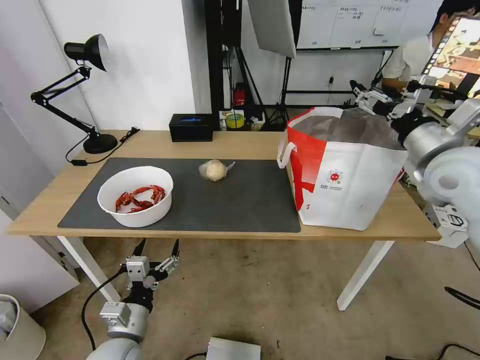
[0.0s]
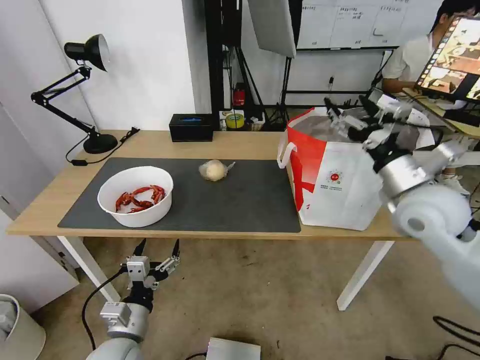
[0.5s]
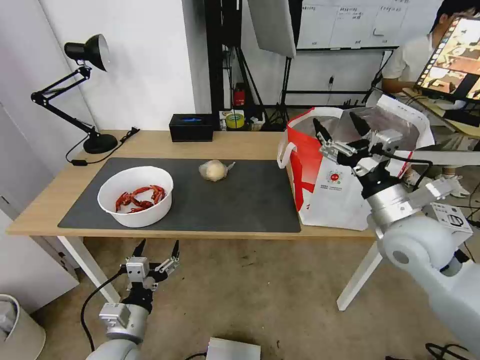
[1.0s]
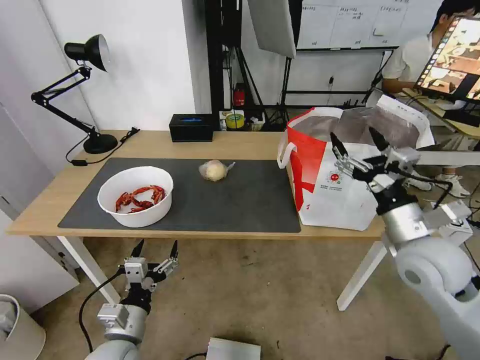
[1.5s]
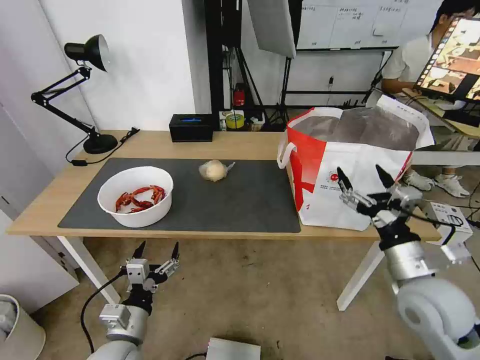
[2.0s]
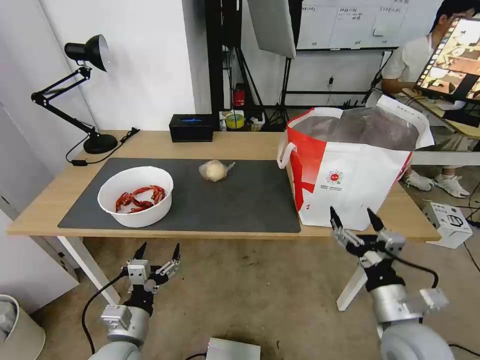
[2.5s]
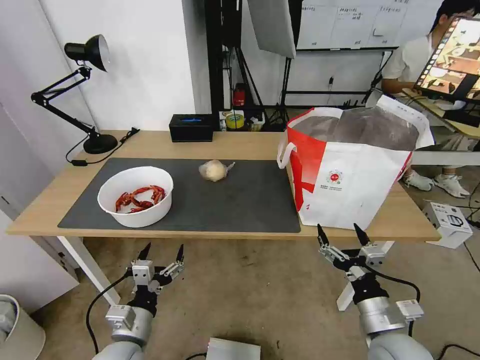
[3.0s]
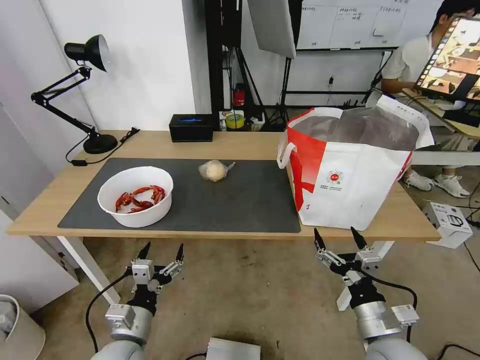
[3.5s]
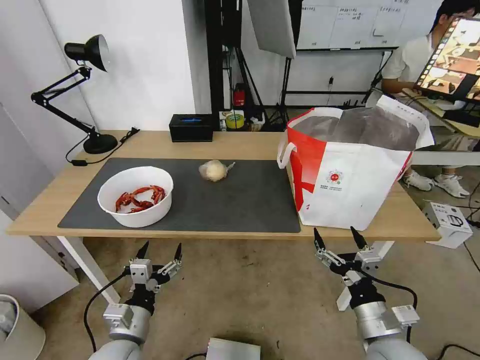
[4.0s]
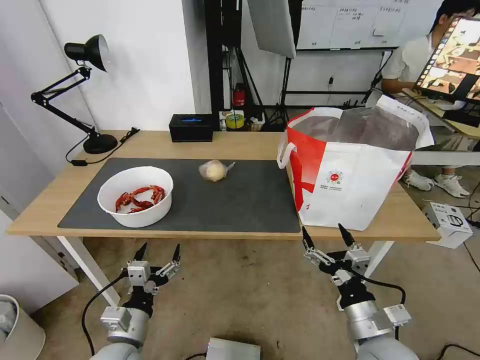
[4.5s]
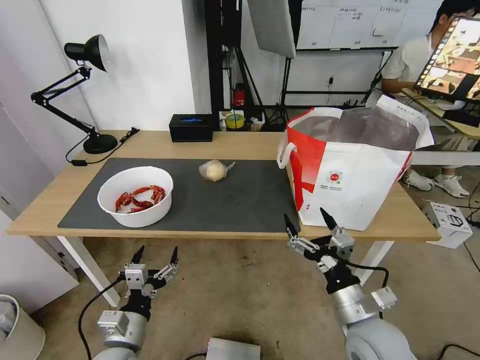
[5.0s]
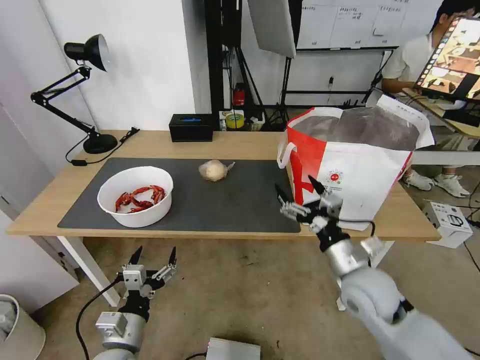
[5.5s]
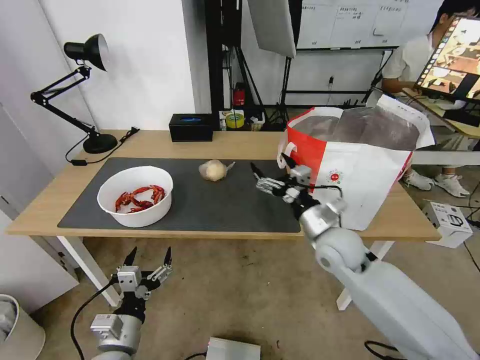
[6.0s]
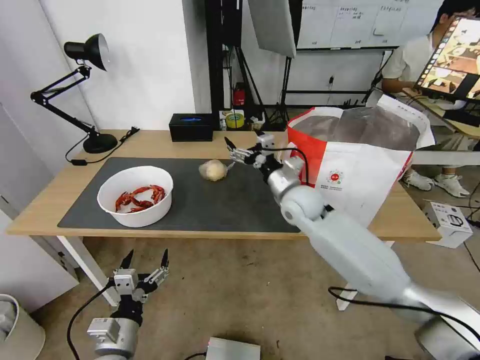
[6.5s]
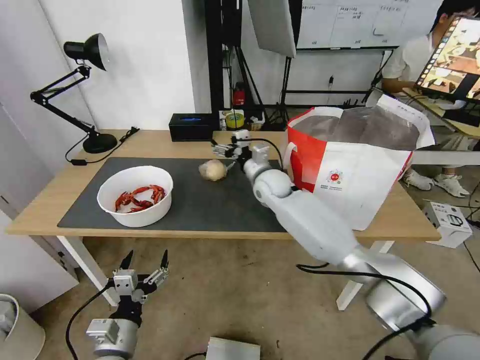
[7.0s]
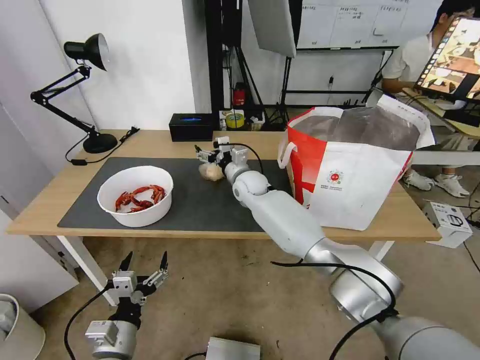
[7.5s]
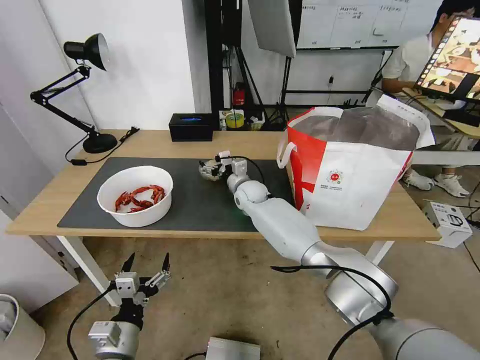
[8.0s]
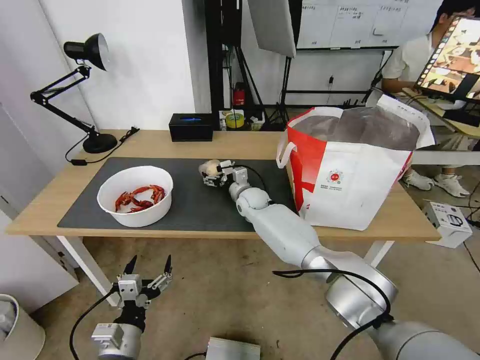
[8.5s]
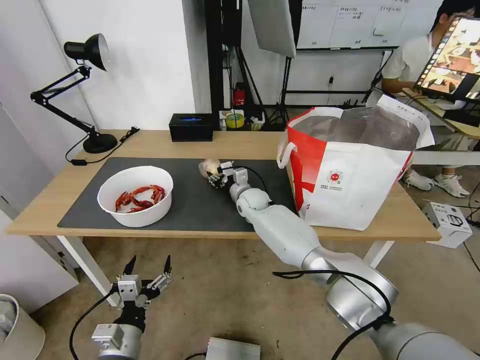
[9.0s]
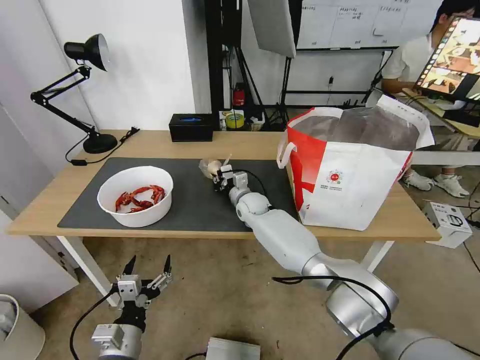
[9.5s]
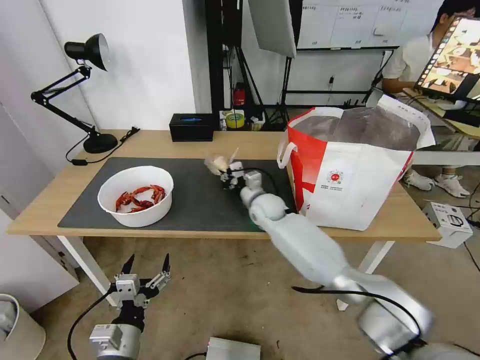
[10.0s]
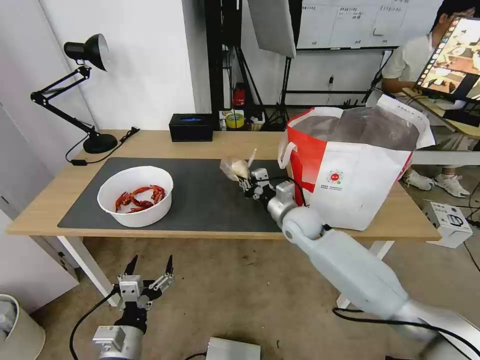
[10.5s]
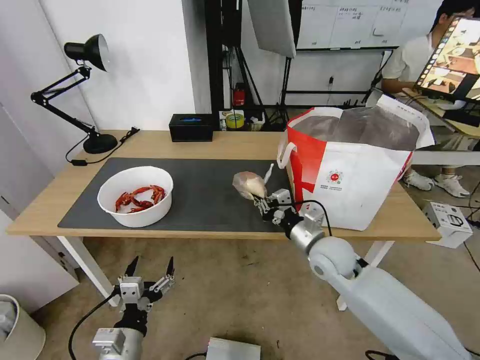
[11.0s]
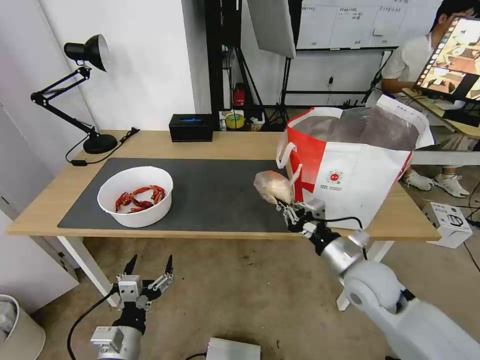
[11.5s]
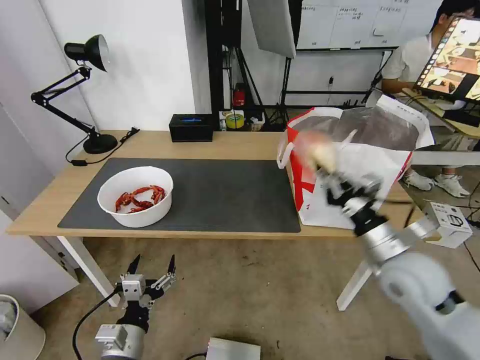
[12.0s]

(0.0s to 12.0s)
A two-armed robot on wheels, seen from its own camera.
Task of the whole recording: Pick up the trash from the table and place it into the takeout bag.
0.0s - 2.0s: The right gripper heads downward and backward, covering some 20 cm.
2.0s - 4.0s: The right gripper is displaced downward and backward by some 15 cm.
4.0s - 6.0s: The right gripper moves forward, roughly 20 cm.
6.0s - 8.0s: The right gripper heads forward and to the left, covering approximately 30 cm.
8.0s - 10.0s: The right gripper changes place by roughly 5 cm, and closes.
10.0s - 12.0s: The right gripper goes some 35 cm backward, to the right and upward.

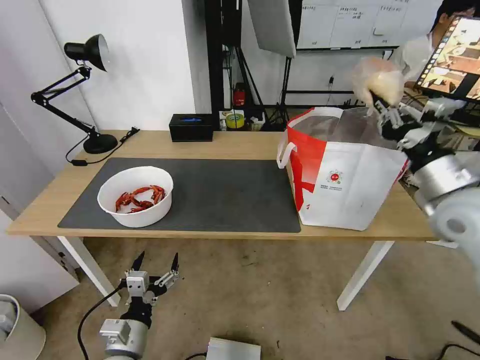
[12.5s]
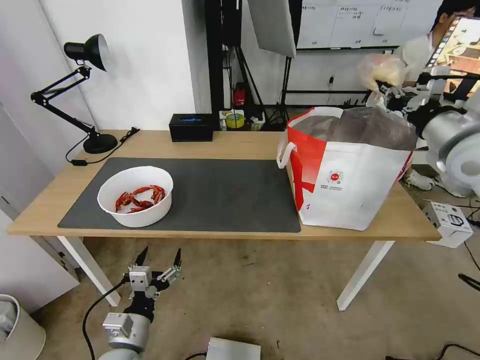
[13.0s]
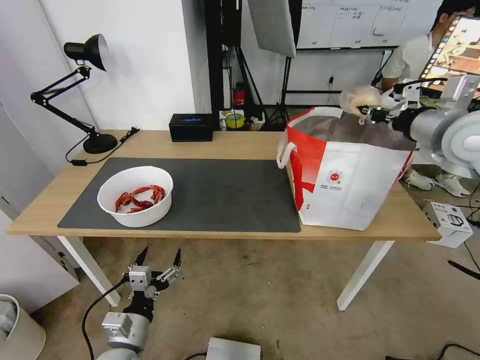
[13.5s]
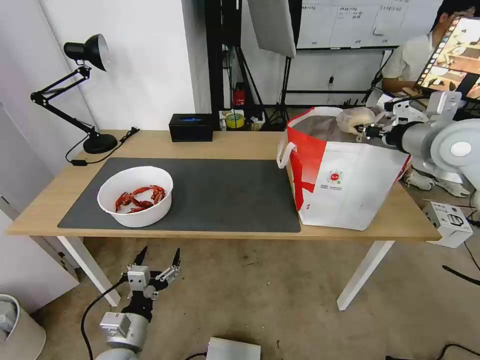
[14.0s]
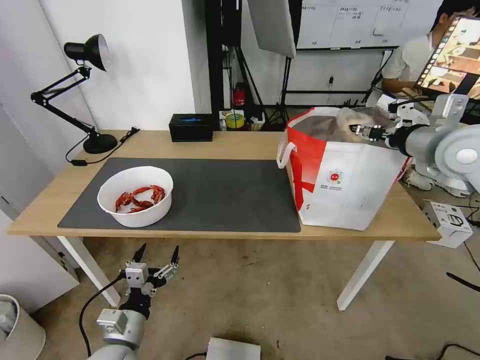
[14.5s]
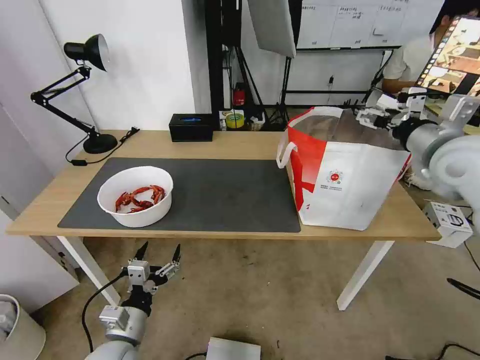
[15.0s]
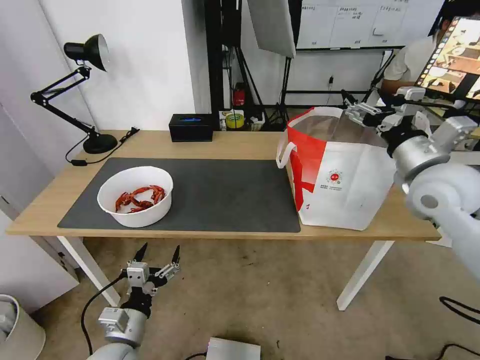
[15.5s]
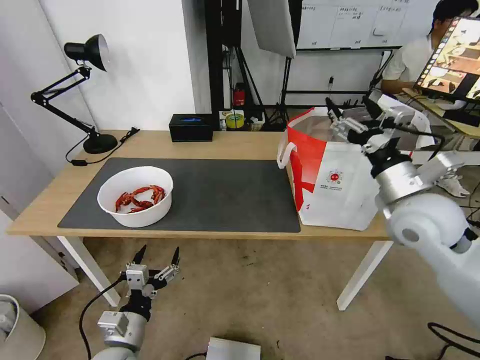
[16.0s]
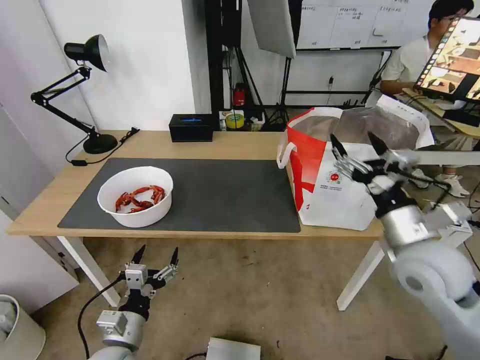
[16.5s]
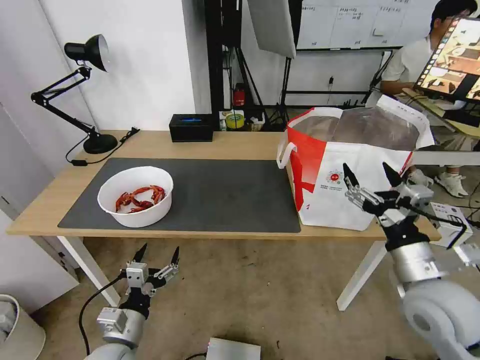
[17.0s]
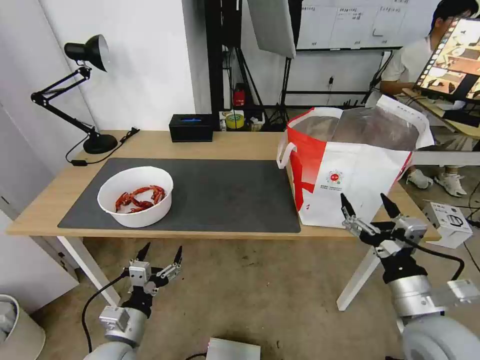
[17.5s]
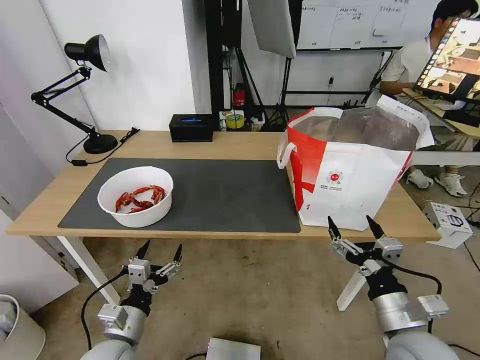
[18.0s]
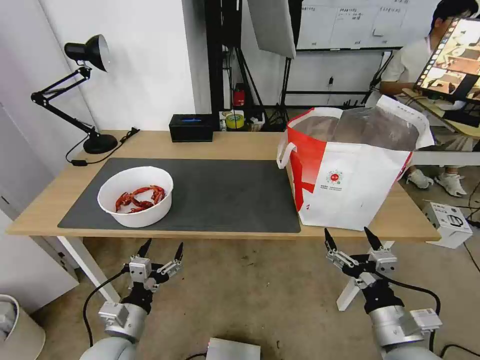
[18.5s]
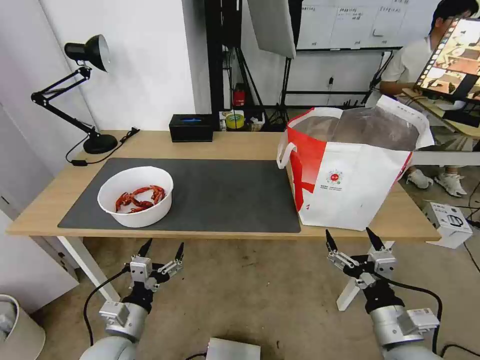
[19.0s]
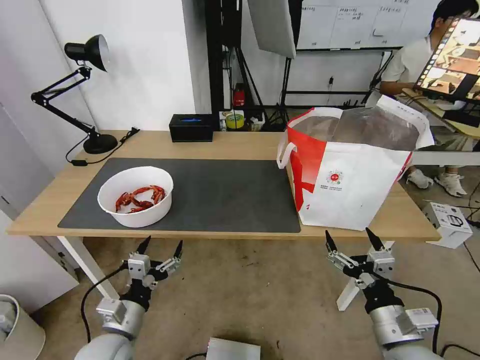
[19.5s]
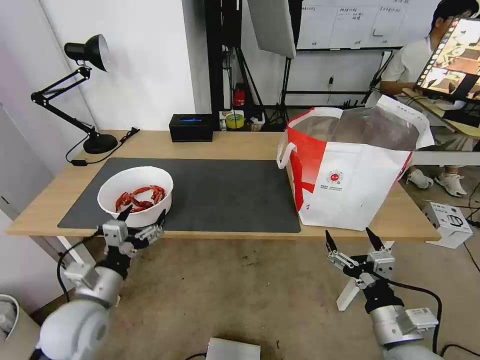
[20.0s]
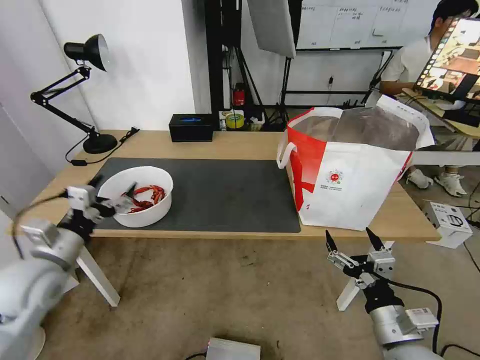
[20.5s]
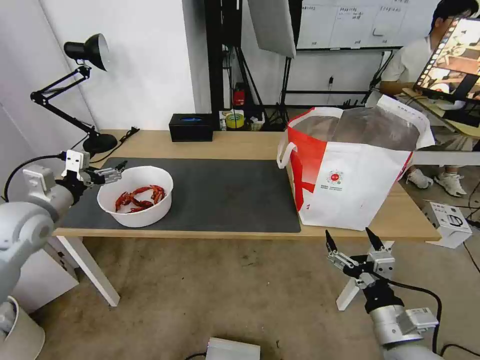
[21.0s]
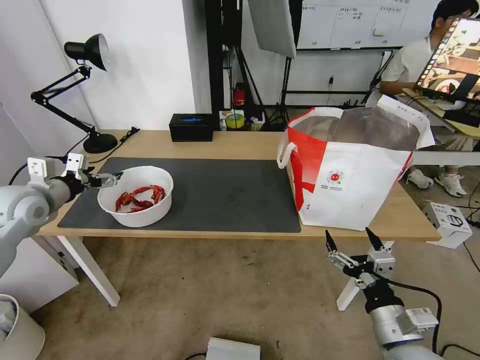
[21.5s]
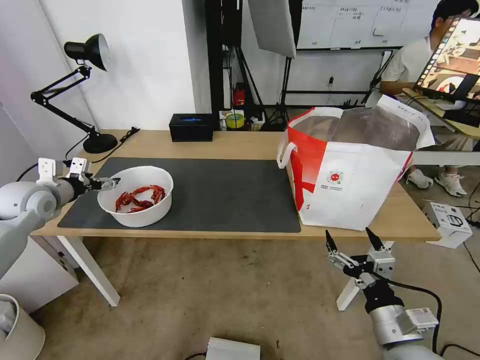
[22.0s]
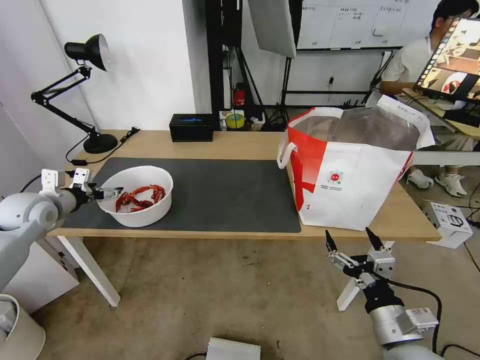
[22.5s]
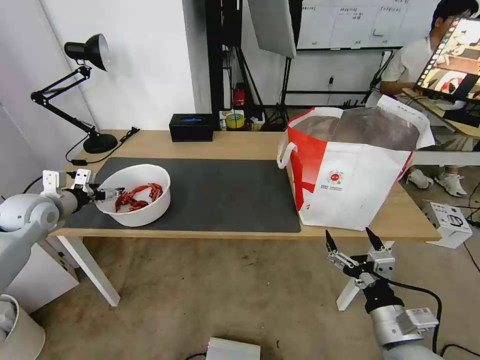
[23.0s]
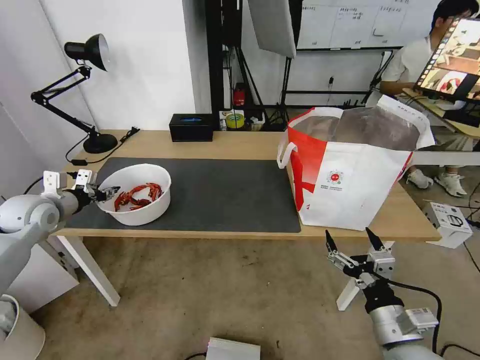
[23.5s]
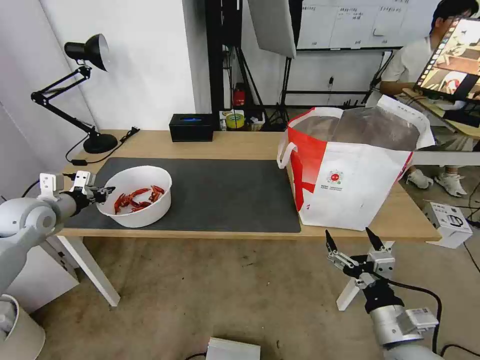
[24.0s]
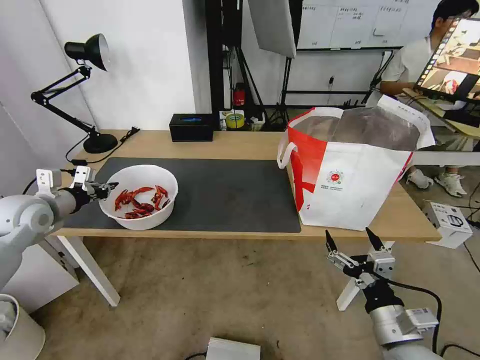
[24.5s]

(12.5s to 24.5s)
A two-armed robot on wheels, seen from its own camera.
Task of the whole recording: Pick up the trash from the table and place it into the takeout bag.
12.5s - 14.5s: The right gripper travels forward and upward by about 10 cm, and opens.
14.5s - 16.5s: The right gripper moves downward, backward and to the left, some 20 cm, and opens up.
16.5s - 18.5s: The right gripper goes about 20 cm backward and downward.
18.5s - 20.5s: The left gripper shifts approximately 20 cm upward, to the left and forward.
20.5s - 22.5s: The left gripper shifts approximately 20 cm forward and to the left.
22.5s - 24.5s: The left gripper closes.

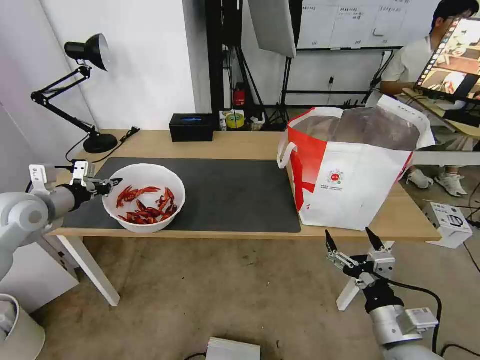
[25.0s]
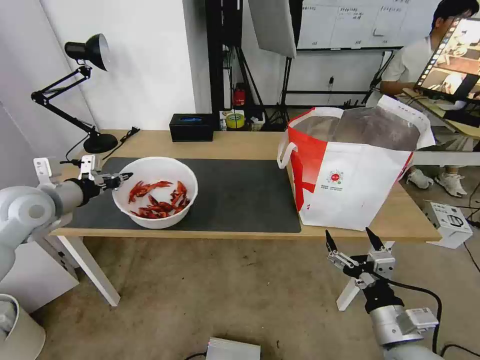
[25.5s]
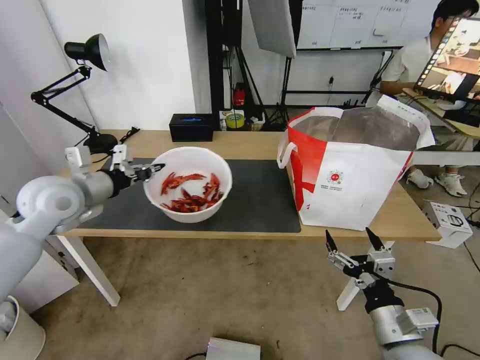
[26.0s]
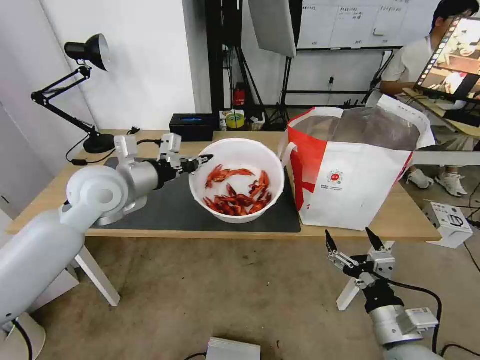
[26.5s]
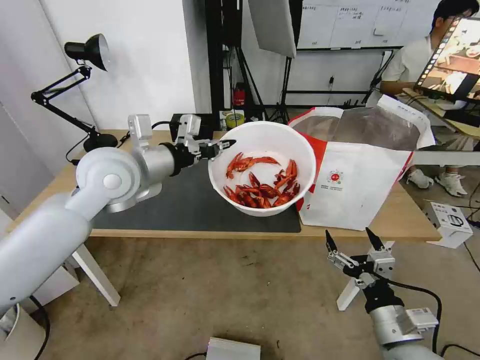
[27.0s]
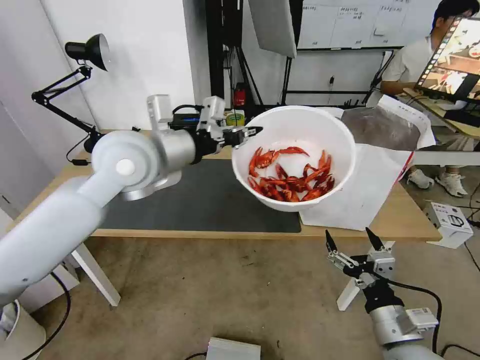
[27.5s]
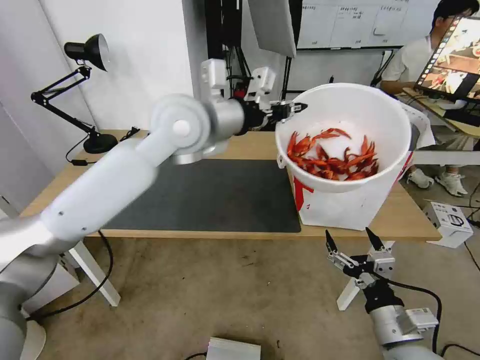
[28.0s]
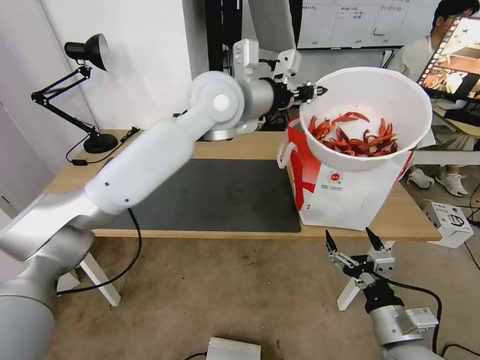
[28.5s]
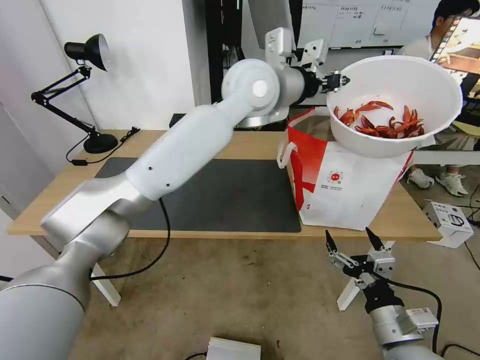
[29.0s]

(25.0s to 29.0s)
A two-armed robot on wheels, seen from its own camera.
Task of the whole recording: Pick up the trash from the table and place it into the takeout bag.
25.0s - 27.0s: The left gripper shifts approximately 25 cm to the right and upward.
27.0s - 29.0s: The left gripper moves to the right, forward and upward, roughly 25 cm.
